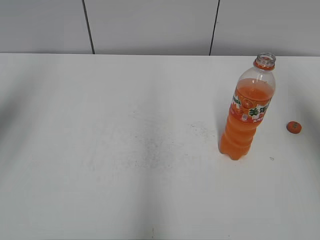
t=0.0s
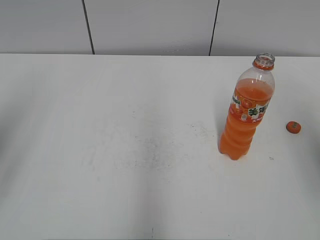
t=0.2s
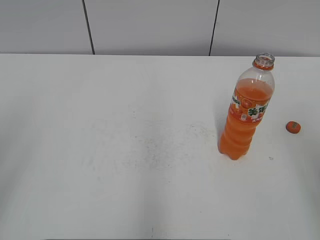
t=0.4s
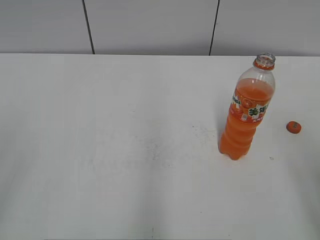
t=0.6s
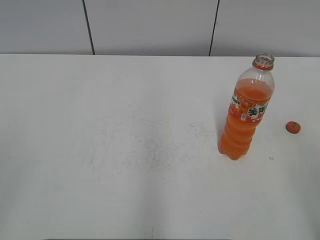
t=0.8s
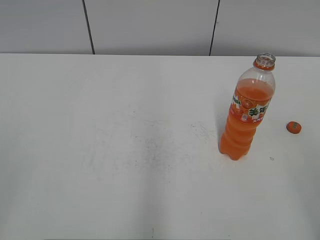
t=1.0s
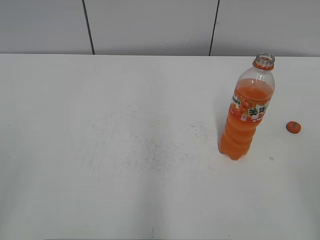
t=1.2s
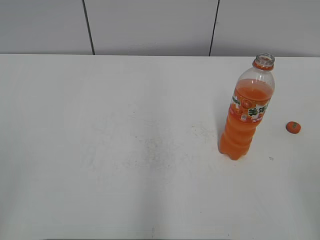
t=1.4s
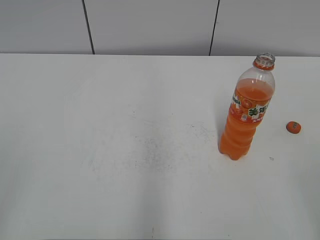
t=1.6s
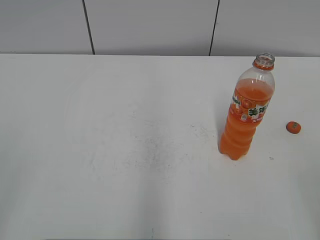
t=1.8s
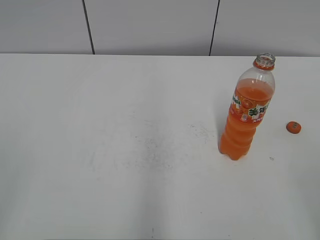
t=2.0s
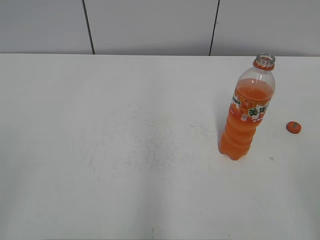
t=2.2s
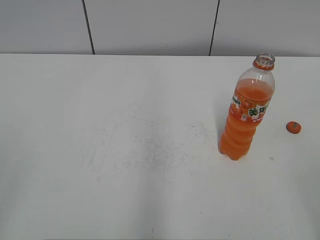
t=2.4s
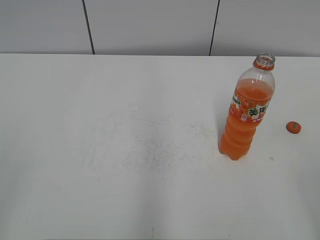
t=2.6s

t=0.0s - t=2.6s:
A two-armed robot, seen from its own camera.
t=0.0s - t=1.2s: The right gripper shifts about 25 cm backward and downward, while the left gripper is displaced backward by roughly 25 cm.

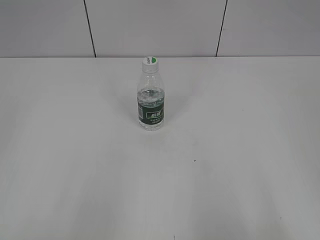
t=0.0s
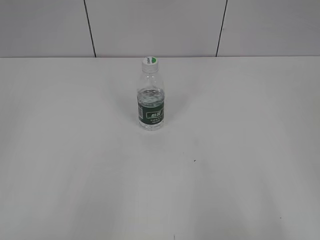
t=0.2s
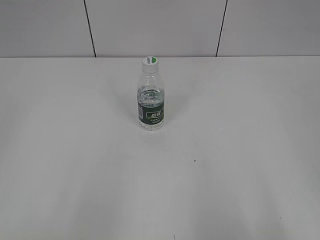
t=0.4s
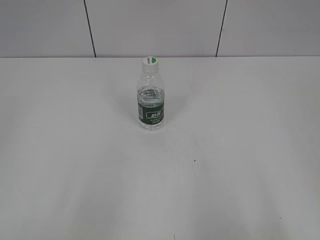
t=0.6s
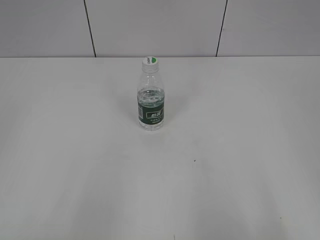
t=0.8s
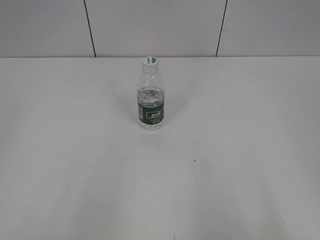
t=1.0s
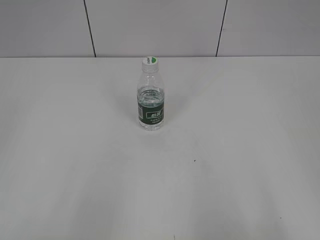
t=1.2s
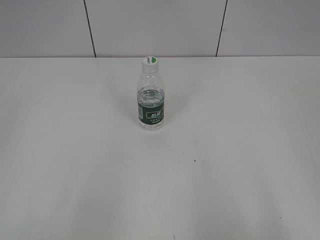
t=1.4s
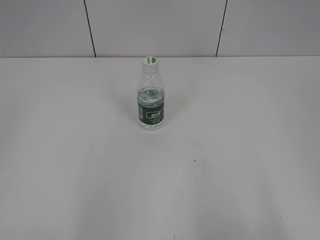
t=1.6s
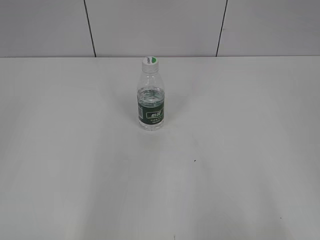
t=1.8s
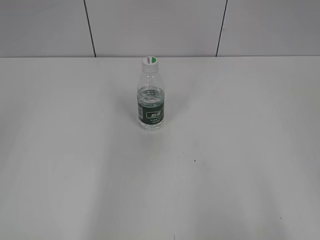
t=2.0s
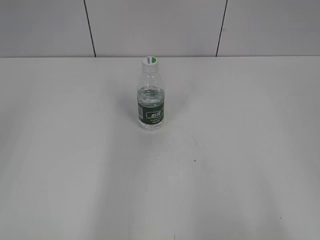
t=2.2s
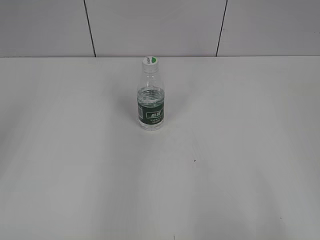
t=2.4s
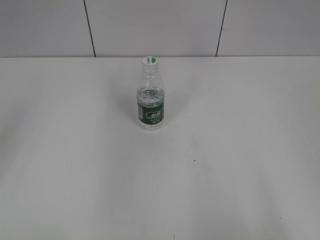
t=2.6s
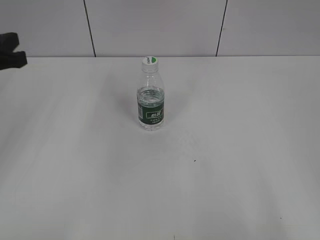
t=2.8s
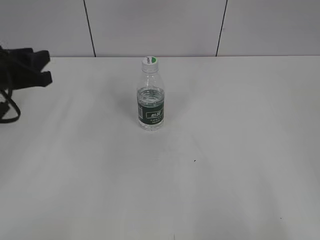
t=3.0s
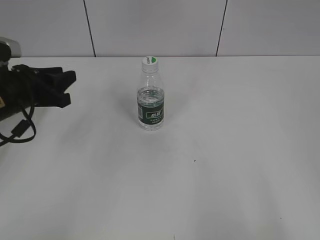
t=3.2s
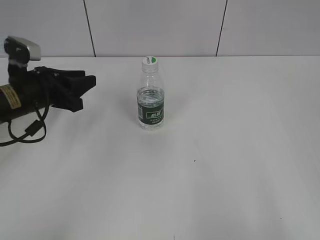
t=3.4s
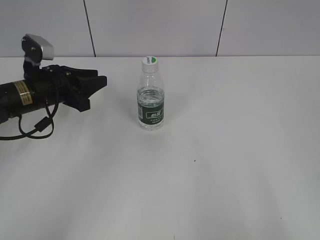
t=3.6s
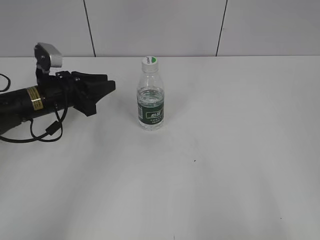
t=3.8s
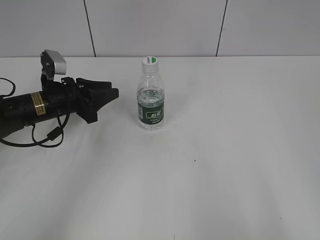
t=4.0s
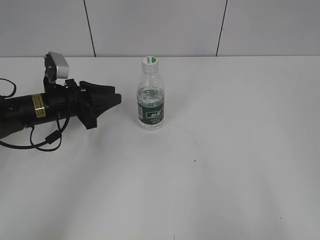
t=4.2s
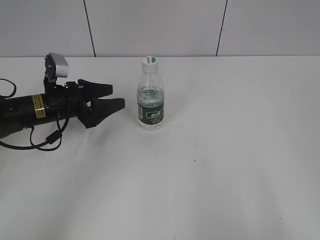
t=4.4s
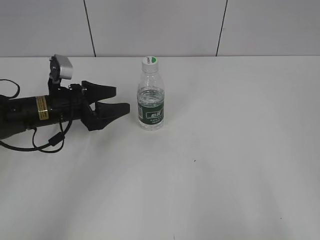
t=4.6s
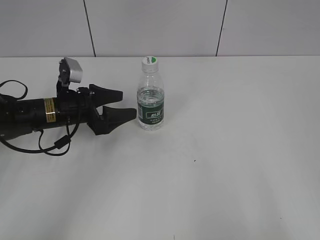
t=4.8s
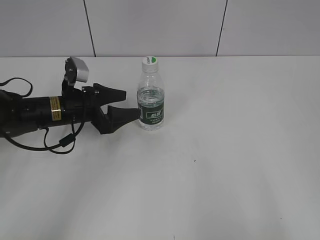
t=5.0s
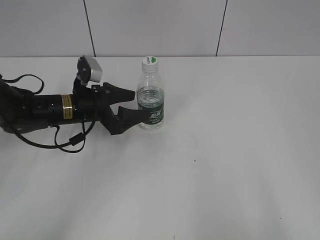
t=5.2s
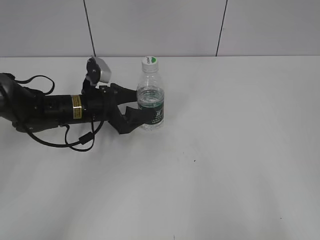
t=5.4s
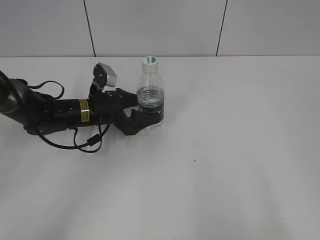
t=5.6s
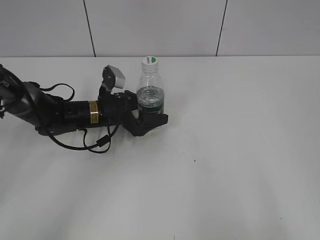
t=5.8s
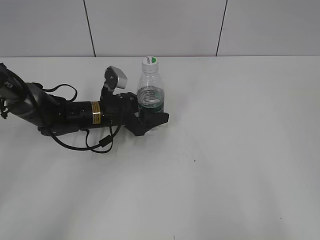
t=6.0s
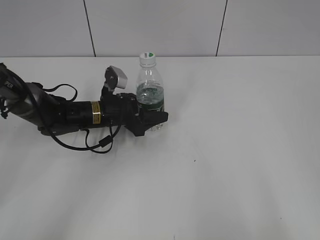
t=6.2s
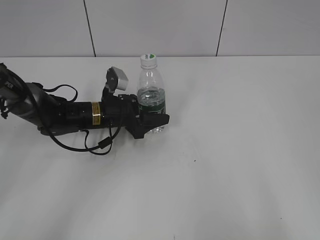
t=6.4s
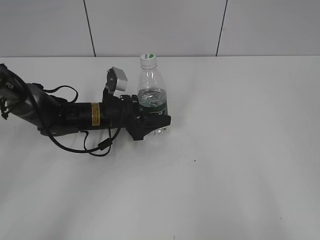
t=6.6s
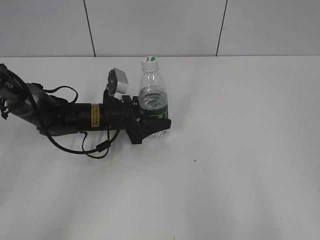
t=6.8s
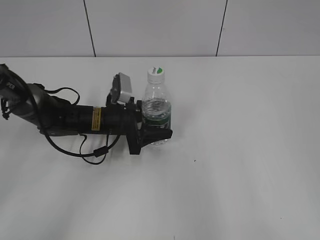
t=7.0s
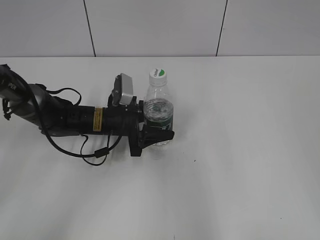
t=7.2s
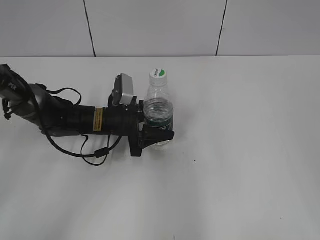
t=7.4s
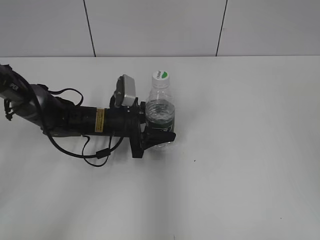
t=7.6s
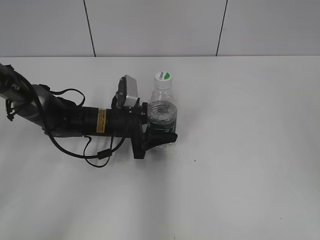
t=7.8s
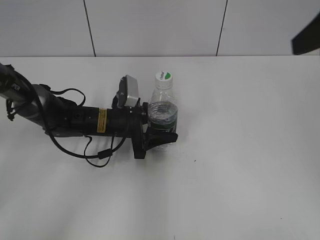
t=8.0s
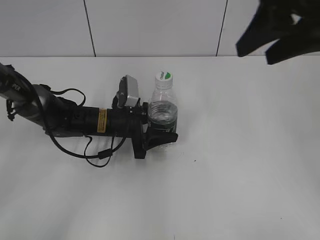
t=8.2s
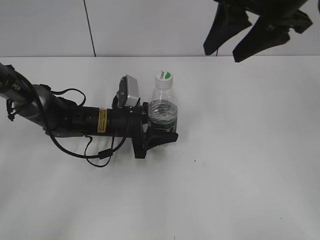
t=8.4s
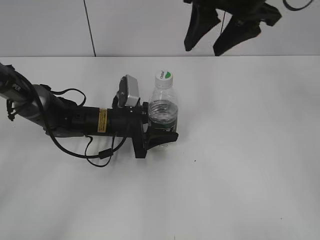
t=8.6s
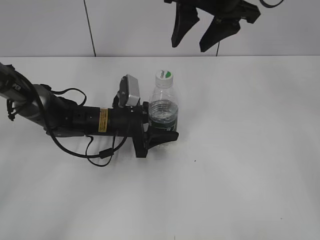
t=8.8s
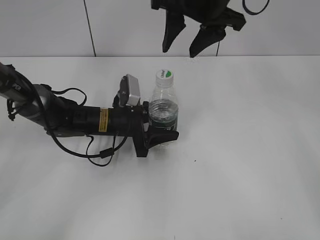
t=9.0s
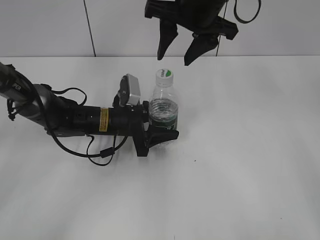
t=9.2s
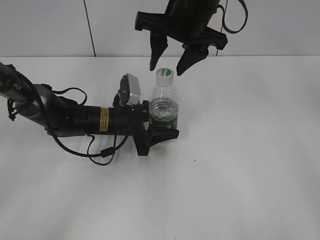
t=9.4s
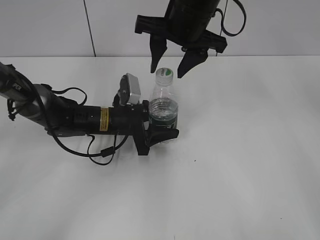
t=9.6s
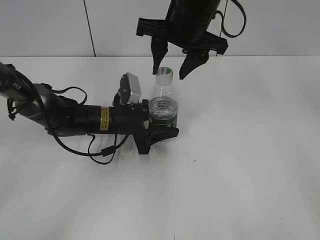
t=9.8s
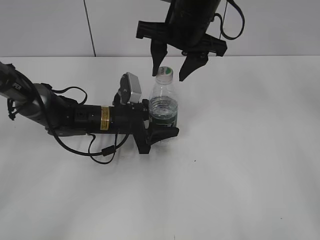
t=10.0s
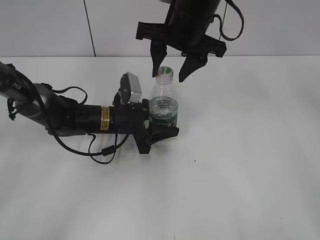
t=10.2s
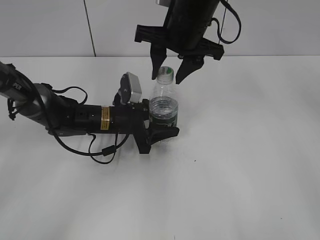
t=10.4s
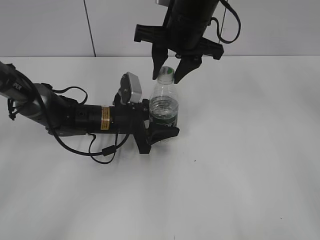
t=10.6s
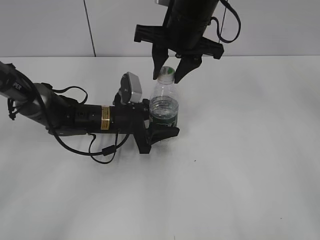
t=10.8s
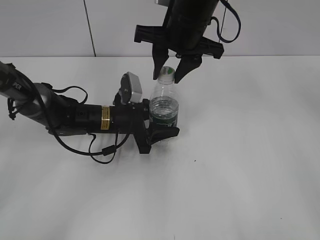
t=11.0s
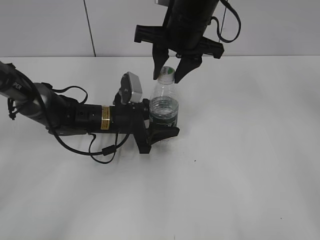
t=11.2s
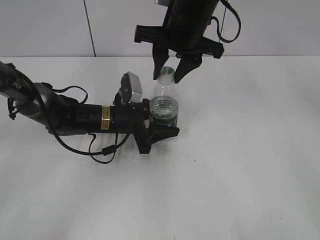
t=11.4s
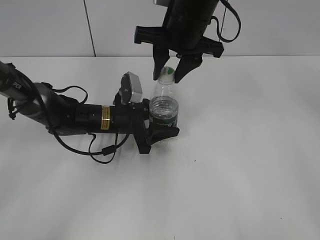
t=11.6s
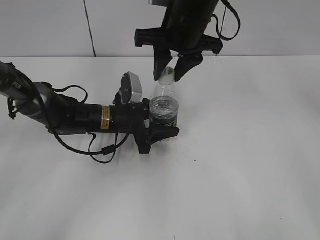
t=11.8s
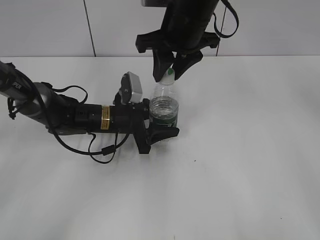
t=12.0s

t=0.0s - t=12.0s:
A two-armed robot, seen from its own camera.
Step, t=0.0s - t=6.0s: Grasp the bottle and move it to the center of the table with the left gripper.
t=1.6s - t=3.0s: The left gripper goes about 30 cm forward.
t=3.0s - t=4.4s: The left gripper moves downward, forward and to the right, about 15 cm, and opens its fingers.
t=4.4s - t=6.0s: The left gripper goes some 10 cm to the right.
t=6.0s - t=7.6s: The right gripper shifts roughly 15 cm forward and upward.
t=7.6s - t=9.0s: The right gripper heads forward and to the left, covering about 30 cm.
t=9.0s - t=10.4s: The right gripper is displaced downward by some 5 cm.

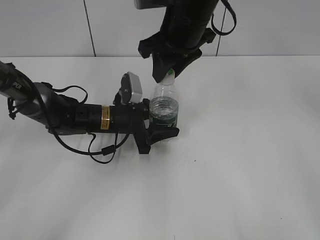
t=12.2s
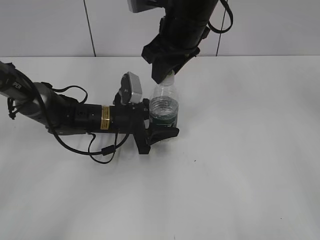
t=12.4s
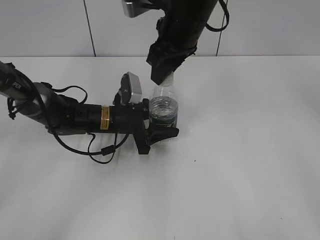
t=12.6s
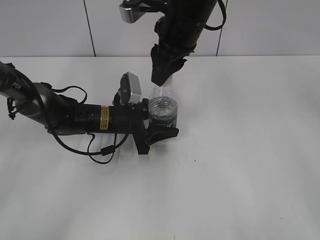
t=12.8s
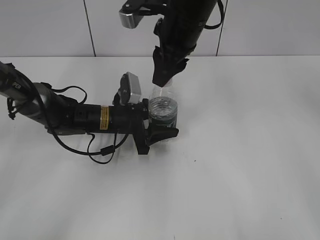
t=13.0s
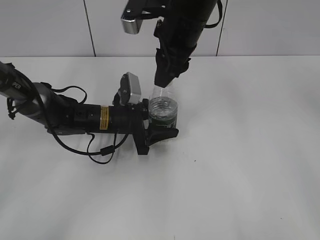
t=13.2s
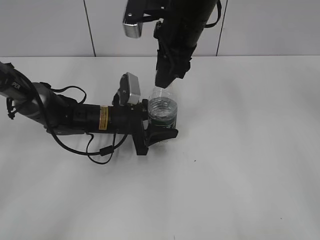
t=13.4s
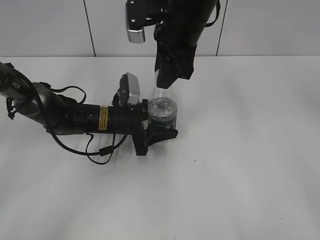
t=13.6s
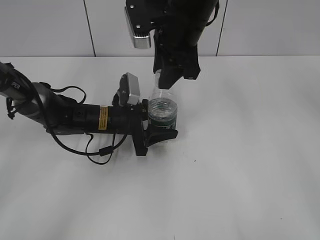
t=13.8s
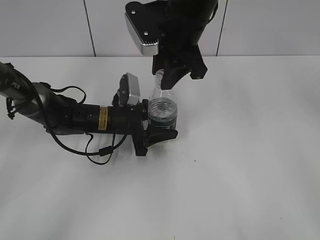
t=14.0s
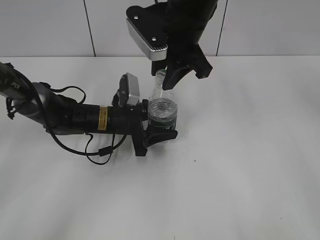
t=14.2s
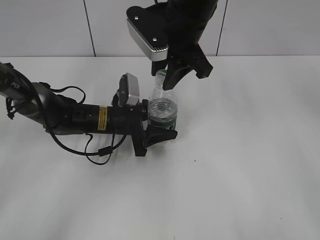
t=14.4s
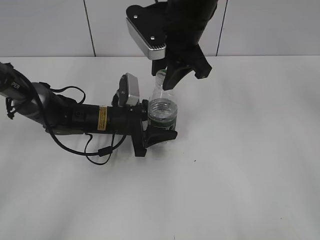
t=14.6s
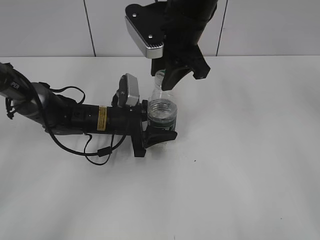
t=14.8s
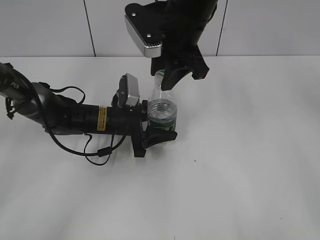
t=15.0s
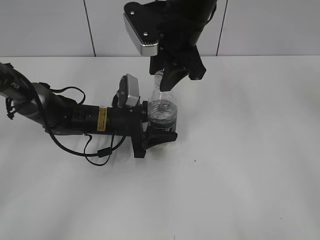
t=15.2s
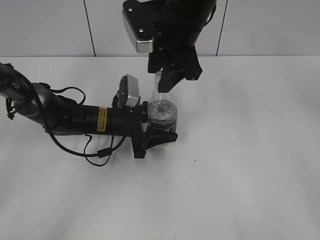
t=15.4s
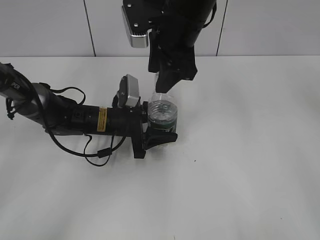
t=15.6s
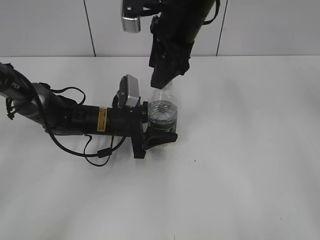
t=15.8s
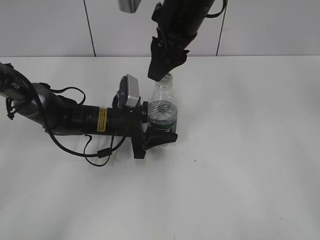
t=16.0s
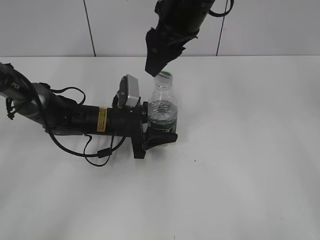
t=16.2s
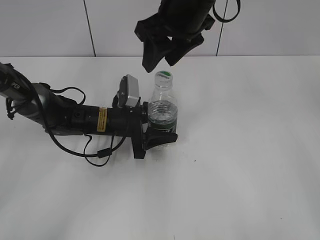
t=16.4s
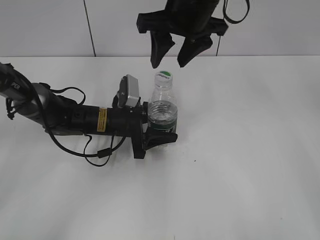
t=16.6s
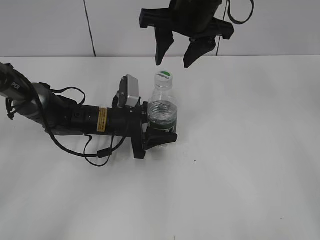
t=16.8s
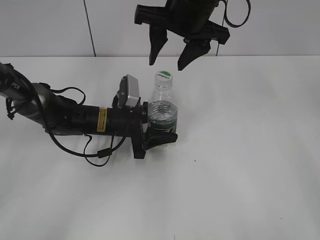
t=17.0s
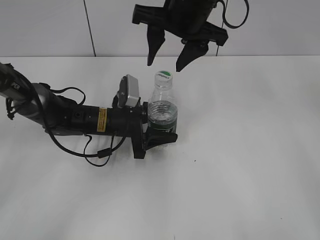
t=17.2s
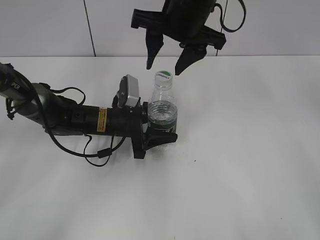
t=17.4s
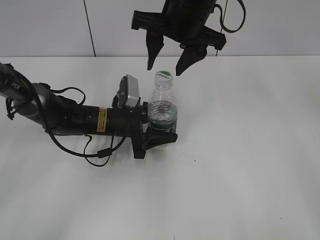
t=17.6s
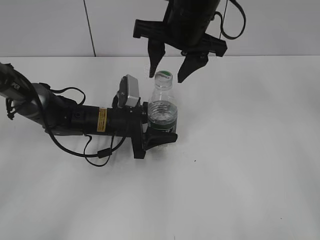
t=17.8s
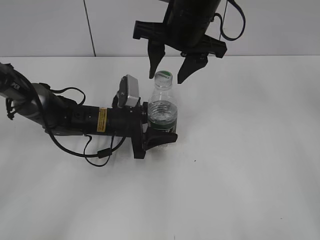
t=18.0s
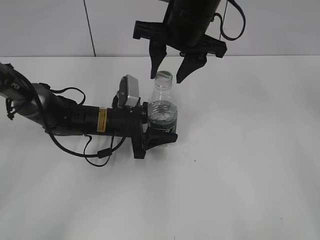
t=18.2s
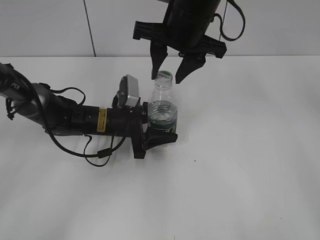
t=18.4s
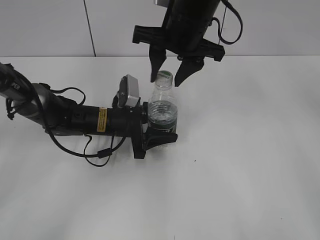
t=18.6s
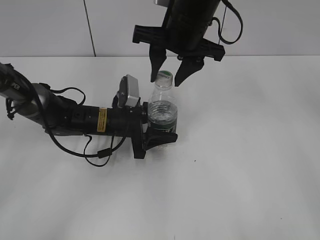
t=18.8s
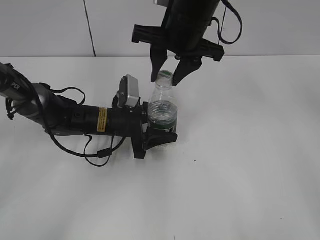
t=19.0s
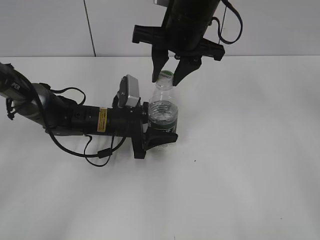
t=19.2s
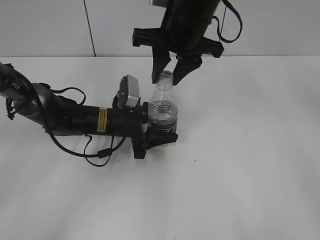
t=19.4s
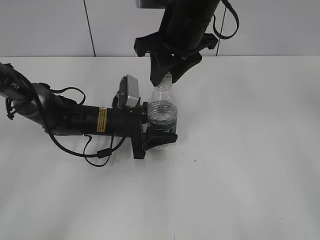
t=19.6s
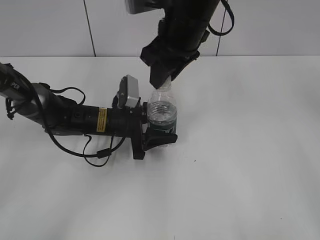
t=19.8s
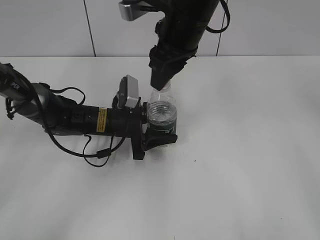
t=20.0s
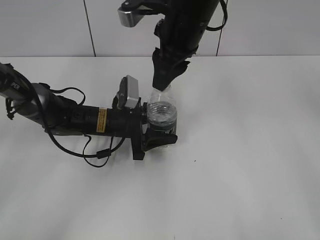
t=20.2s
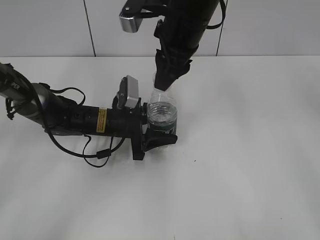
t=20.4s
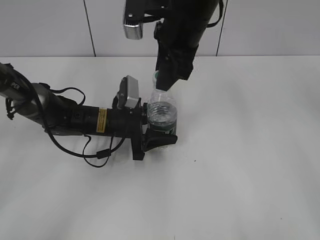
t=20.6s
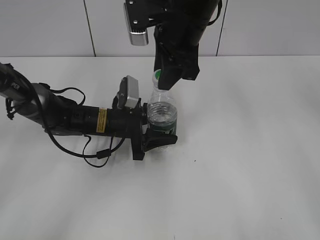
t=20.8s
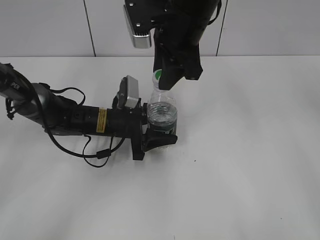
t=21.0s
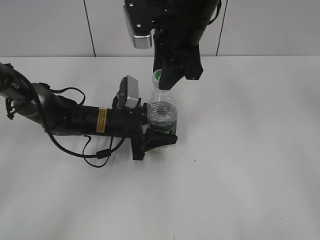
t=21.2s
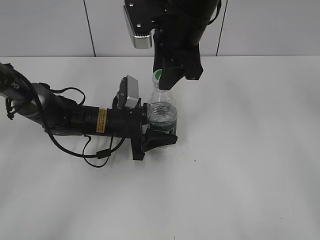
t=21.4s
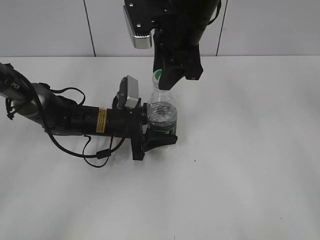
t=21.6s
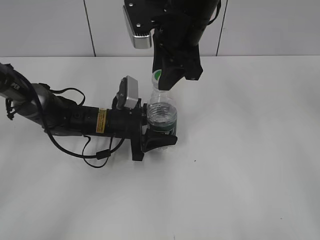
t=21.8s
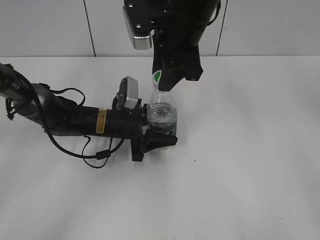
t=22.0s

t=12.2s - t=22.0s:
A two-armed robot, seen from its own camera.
t=15.0s - t=16.4s: The right gripper opens its fingers.
t=17.8s - t=19.2s: The right gripper closes.
t=20.6s - t=22.0s: The grippers make only small movements.
